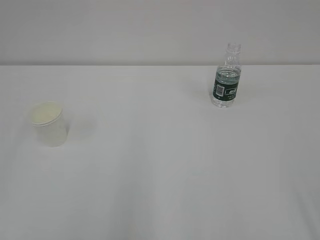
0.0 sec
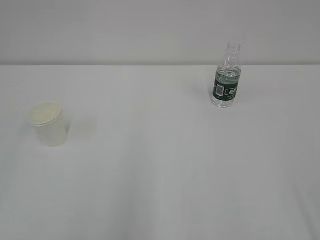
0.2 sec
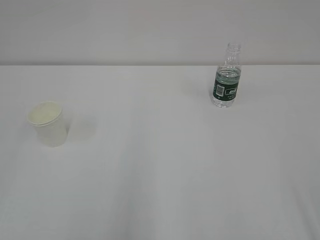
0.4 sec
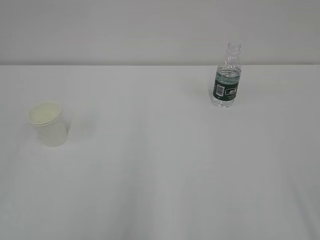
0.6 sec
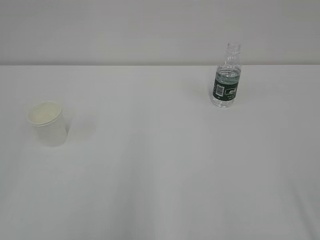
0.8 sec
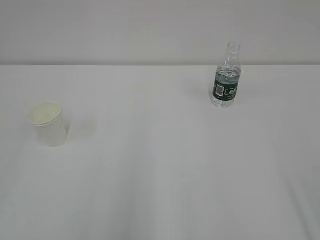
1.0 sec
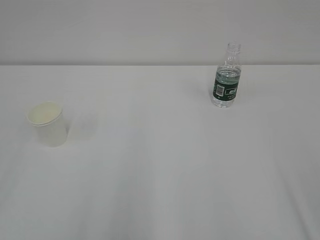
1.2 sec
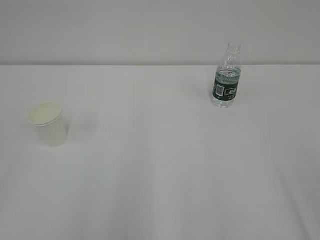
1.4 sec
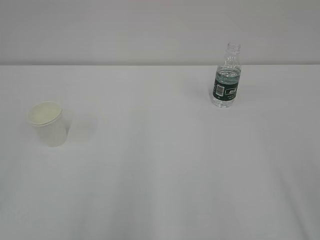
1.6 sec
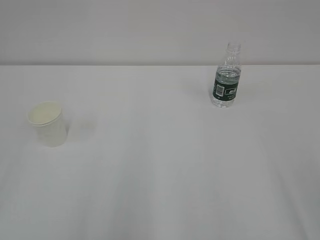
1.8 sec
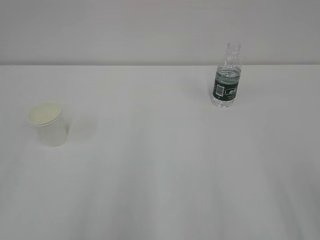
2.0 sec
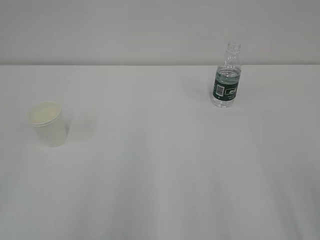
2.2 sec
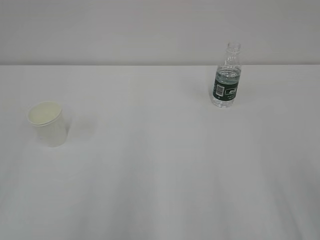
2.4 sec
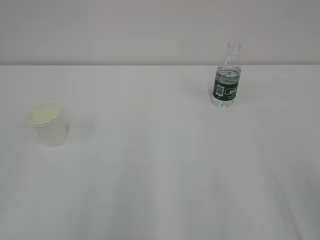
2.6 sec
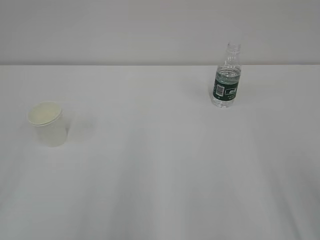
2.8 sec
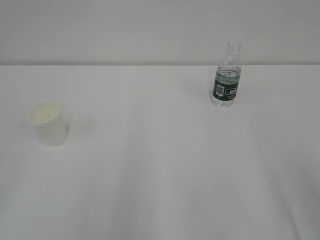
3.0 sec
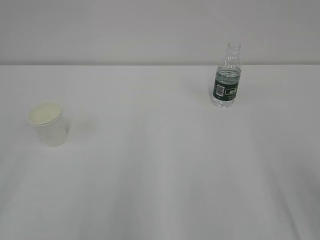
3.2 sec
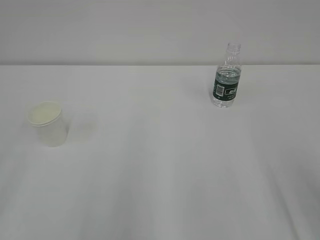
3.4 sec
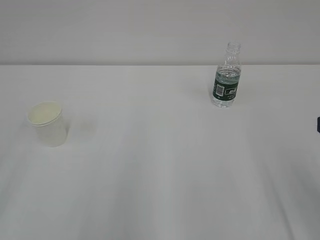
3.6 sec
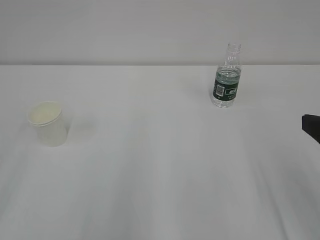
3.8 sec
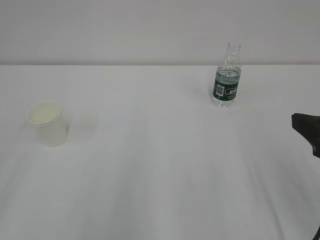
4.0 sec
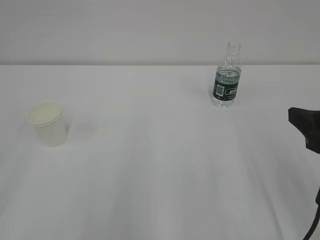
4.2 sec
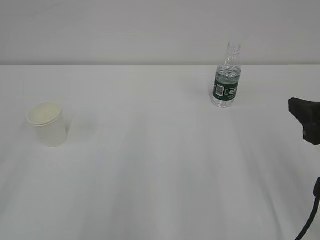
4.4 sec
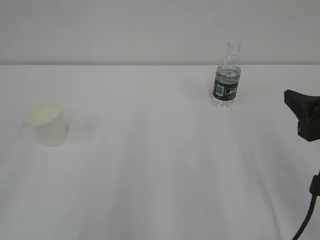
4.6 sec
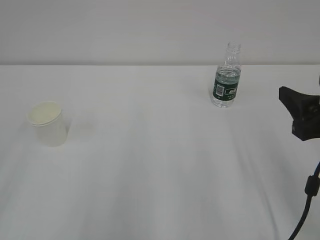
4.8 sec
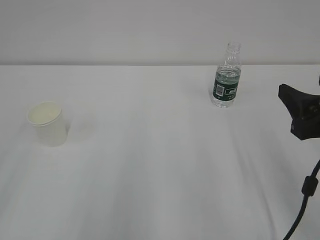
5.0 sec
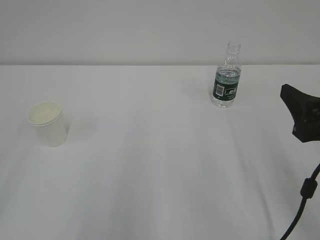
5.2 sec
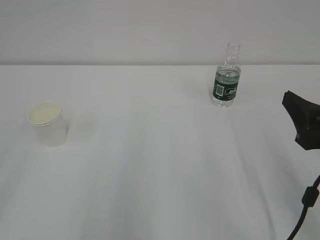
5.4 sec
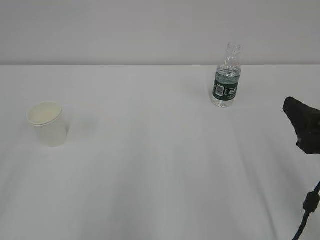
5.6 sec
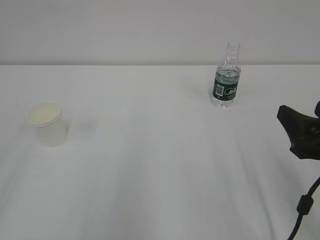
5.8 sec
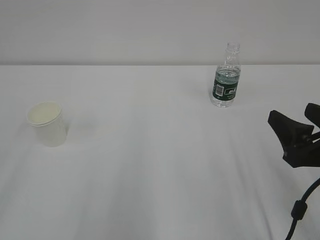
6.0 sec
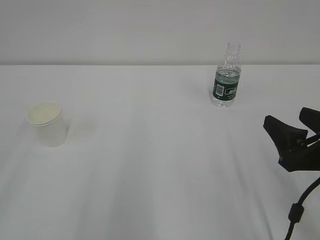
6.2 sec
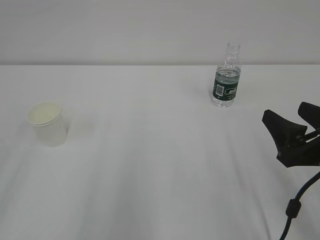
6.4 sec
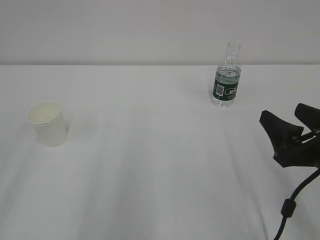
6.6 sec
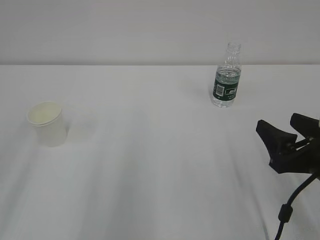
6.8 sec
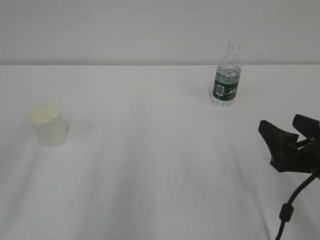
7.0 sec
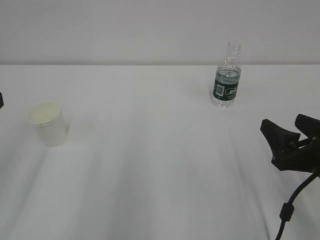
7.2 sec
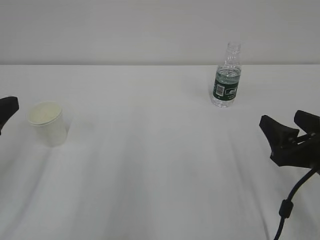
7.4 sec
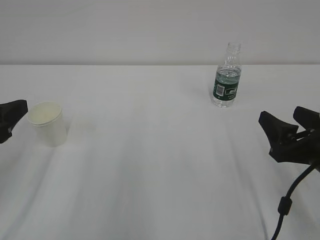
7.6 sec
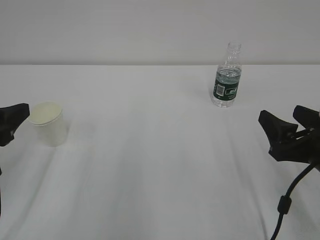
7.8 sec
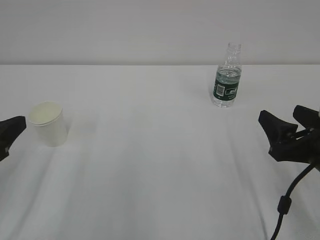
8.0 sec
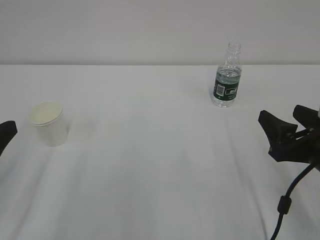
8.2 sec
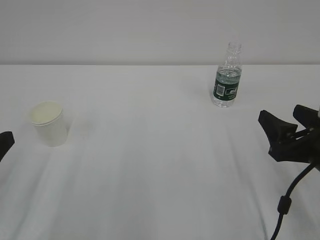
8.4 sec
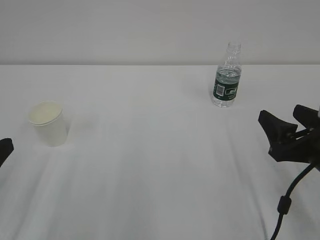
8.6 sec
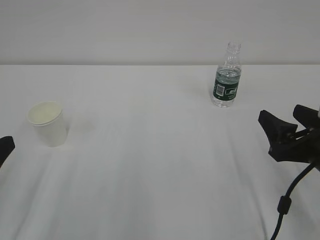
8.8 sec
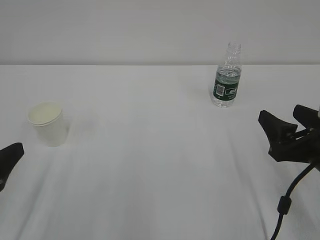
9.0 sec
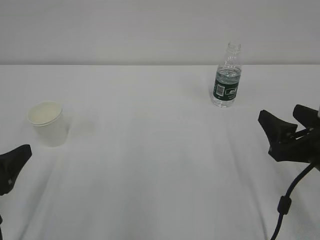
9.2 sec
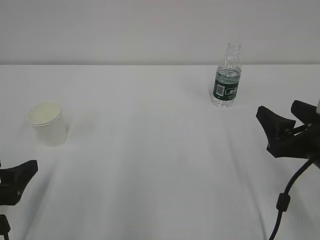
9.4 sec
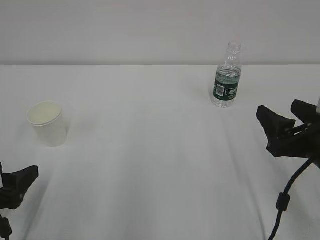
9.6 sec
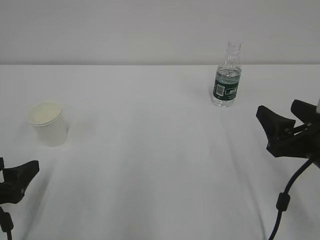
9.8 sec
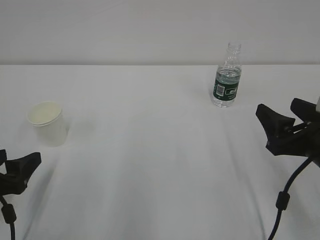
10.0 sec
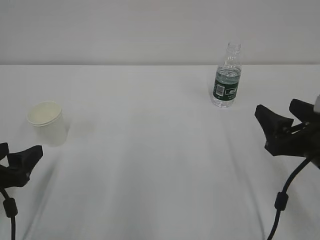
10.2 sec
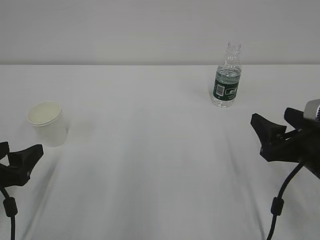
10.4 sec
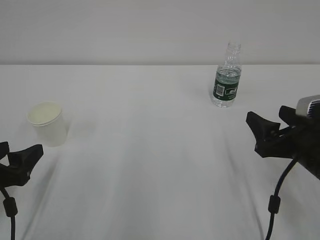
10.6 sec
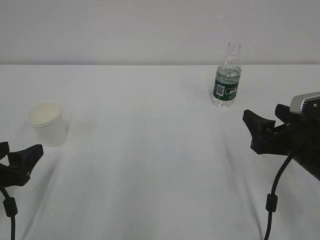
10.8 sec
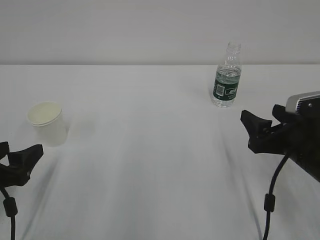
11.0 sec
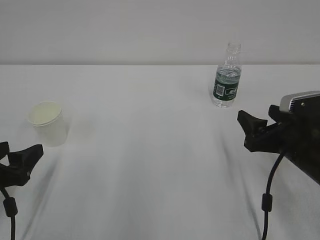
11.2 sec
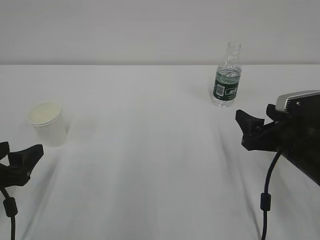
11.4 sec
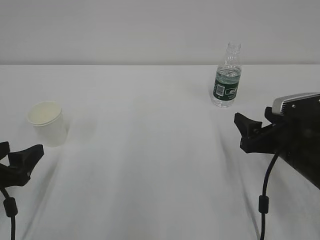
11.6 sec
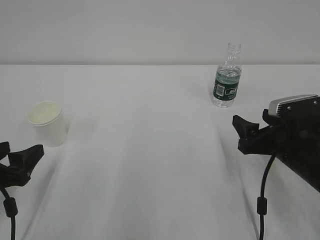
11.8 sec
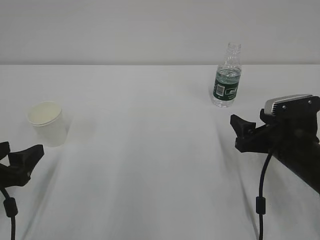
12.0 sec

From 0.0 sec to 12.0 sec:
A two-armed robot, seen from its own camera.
From 3.0 sec to 4.4 sec: The right gripper is displaced forward by about 5 cm.
From 4.4 sec to 6.0 sec: The right gripper goes some 5 cm downward.
From 6.0 sec to 7.6 sec: The left gripper heads forward and downward, covering some 15 cm.
From 7.6 sec to 9.0 sec: The left gripper travels downward by roughly 5 cm, and opens its fingers.
From 9.0 sec to 10.4 sec: The left gripper ends up roughly 5 cm from where it was.
From 10.4 sec to 12.0 sec: The right gripper goes approximately 5 cm forward.

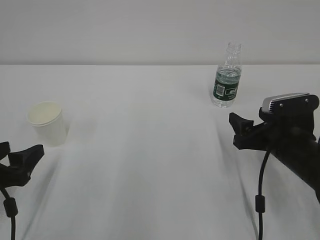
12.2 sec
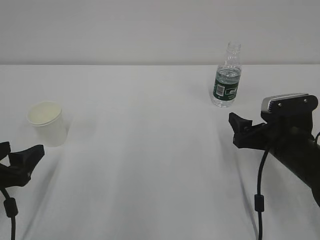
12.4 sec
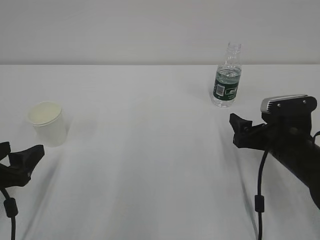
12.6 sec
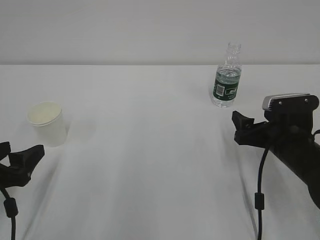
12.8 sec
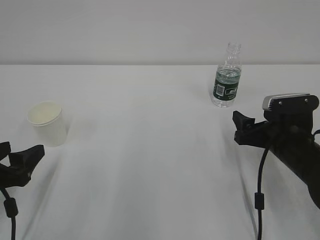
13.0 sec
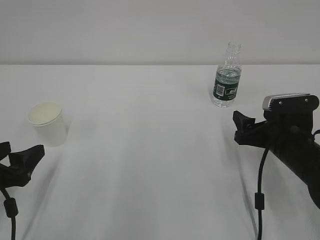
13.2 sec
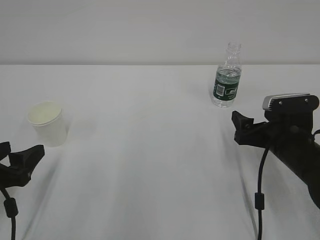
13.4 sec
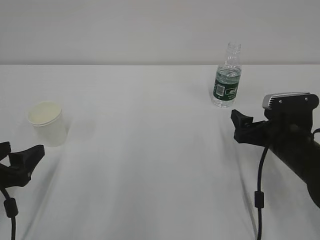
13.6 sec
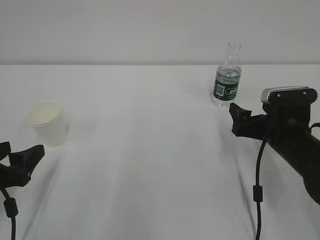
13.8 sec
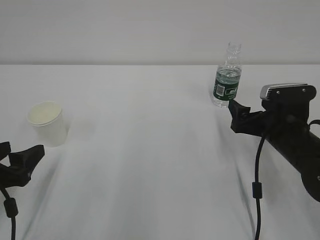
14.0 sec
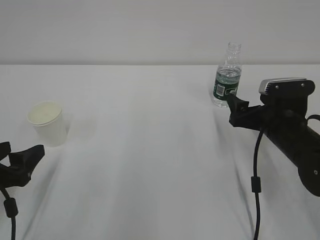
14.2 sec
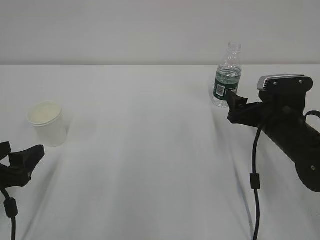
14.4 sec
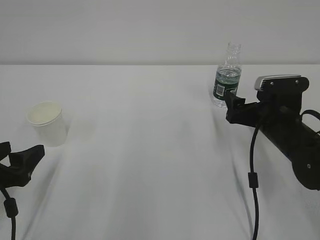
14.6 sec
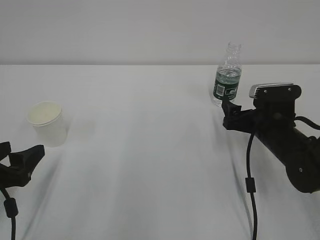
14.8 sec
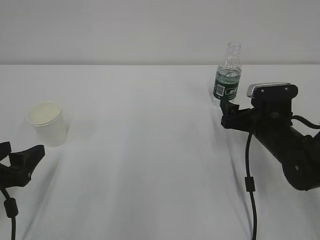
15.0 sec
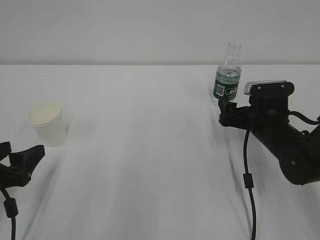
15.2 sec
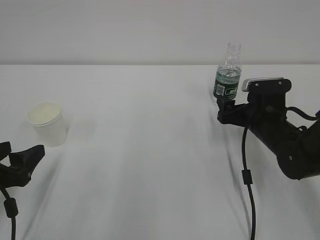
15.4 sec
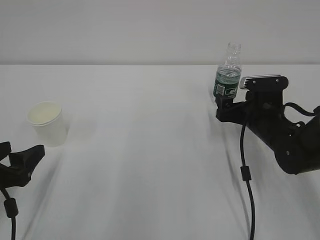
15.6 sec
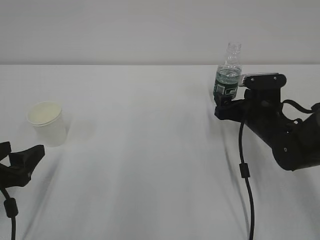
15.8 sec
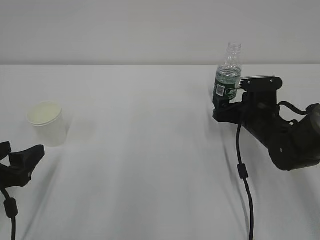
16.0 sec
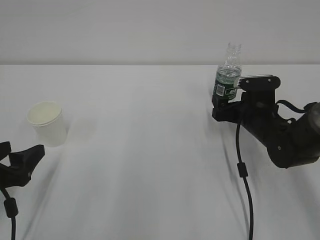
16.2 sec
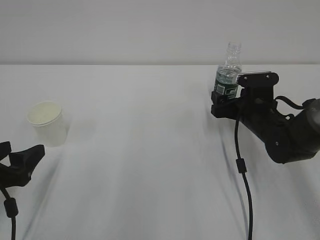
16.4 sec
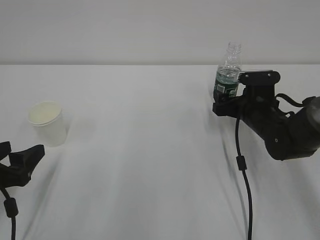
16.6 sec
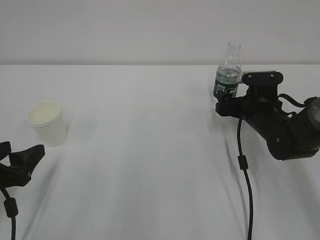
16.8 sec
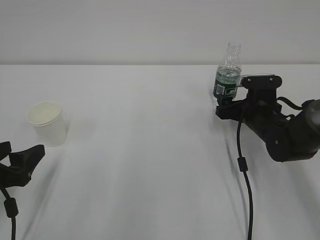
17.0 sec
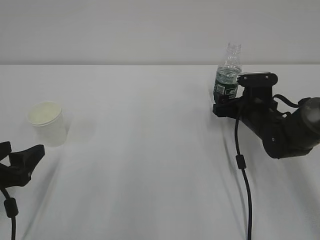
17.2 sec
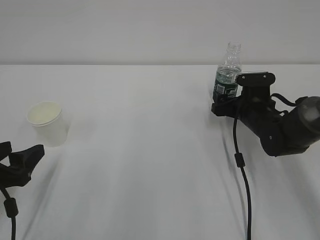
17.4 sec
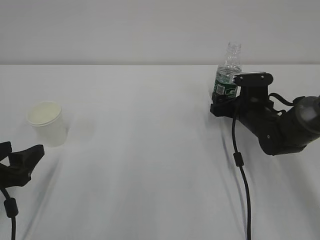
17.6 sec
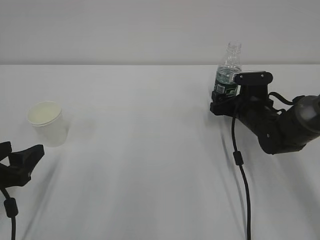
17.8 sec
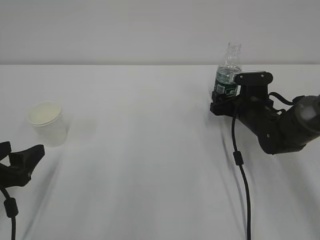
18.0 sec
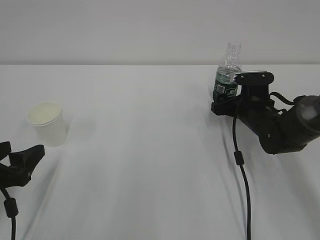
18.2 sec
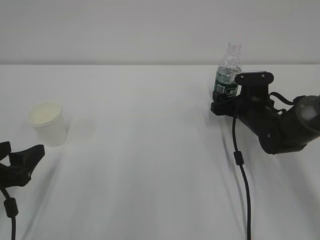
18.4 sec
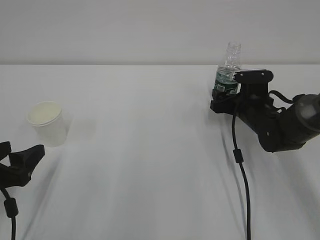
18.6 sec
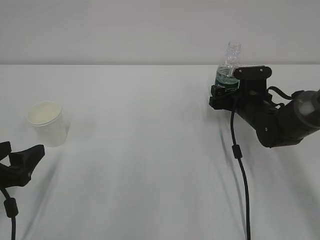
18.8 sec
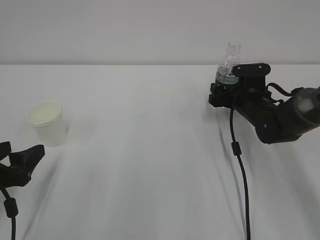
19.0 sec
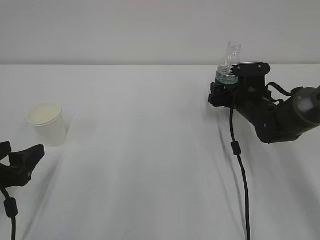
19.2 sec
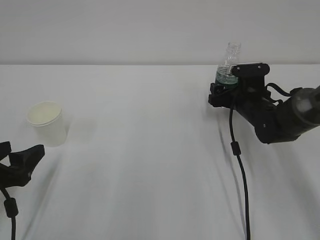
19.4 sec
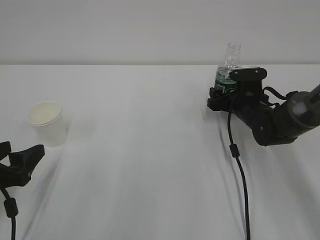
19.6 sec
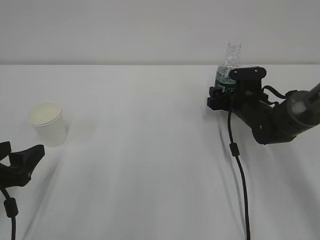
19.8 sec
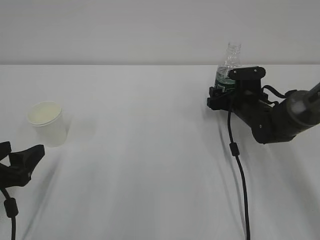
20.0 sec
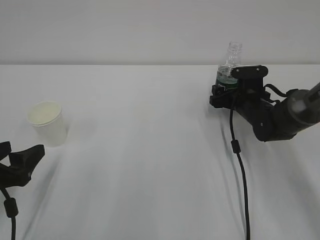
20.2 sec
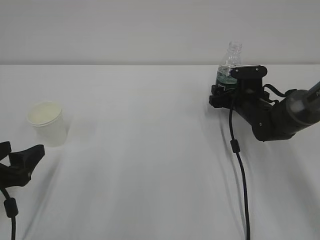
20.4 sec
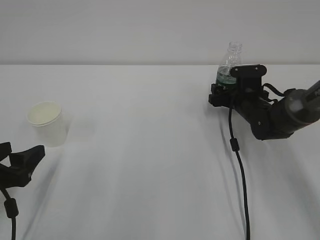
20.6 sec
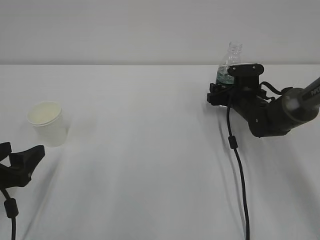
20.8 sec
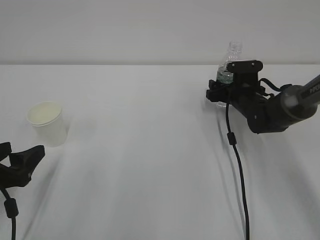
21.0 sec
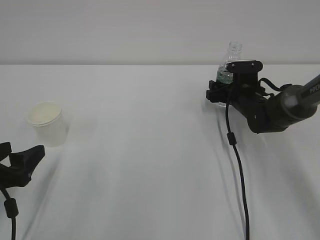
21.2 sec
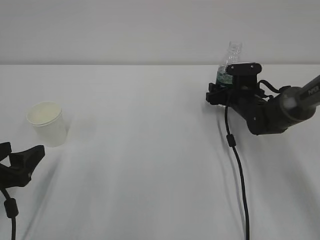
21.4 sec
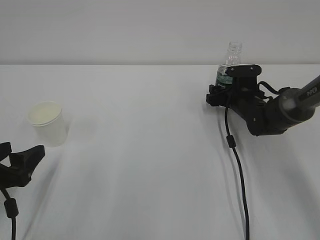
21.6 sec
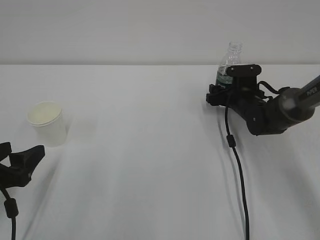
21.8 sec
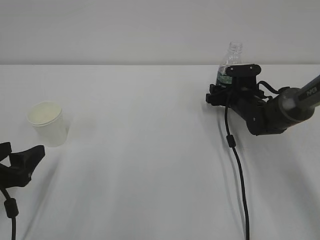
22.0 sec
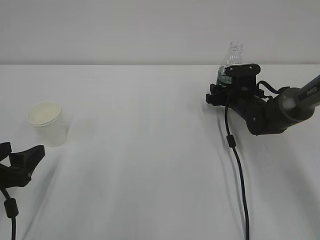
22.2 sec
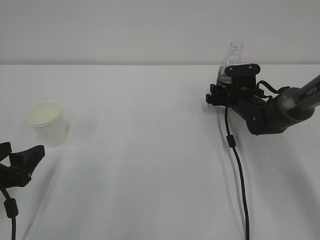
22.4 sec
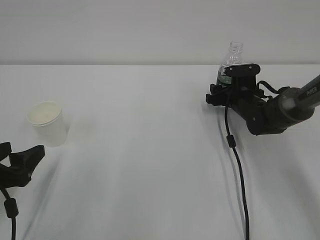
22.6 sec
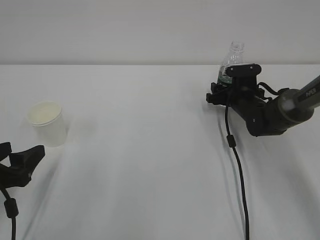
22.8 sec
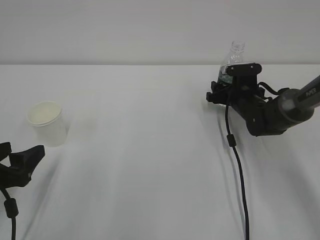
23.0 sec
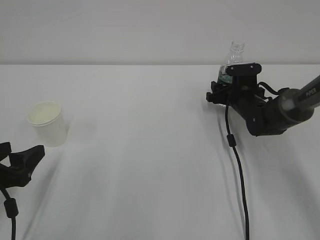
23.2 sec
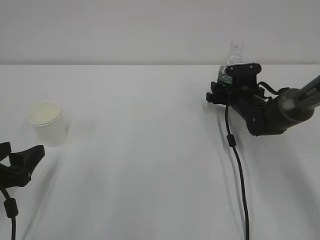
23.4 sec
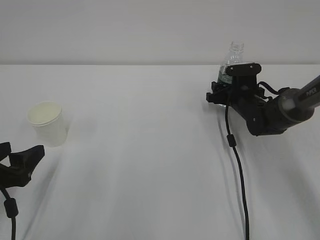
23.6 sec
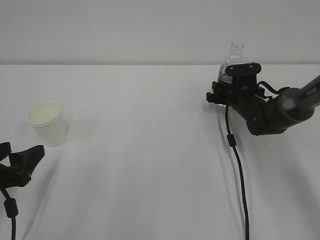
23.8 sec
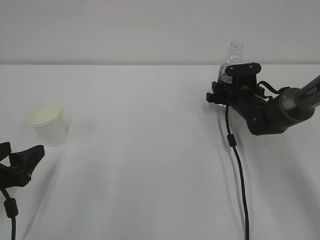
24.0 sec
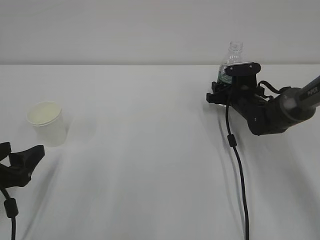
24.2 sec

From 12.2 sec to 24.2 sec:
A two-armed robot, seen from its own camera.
From 12.2 sec to 13.8 sec: The grippers move only a little.
From 13.8 sec to 15.2 sec: The grippers make only small movements.
From 15.2 sec to 16.6 sec: There are only small adjustments of the grippers.
From 16.6 sec to 19.8 sec: The grippers move only a little.
From 19.8 sec to 21.2 sec: The grippers move only a little.
From 21.2 sec to 22.6 sec: The right gripper closes.
From 22.6 sec to 24.2 sec: Both grippers stay about where they are.
